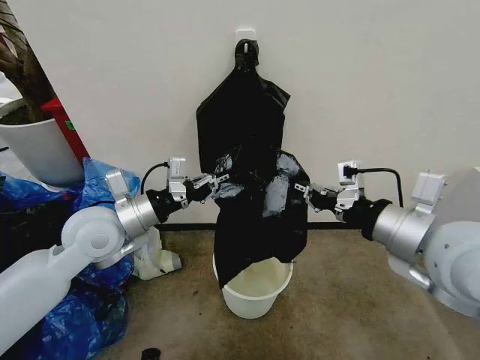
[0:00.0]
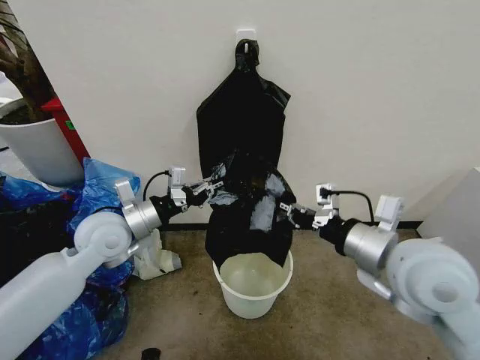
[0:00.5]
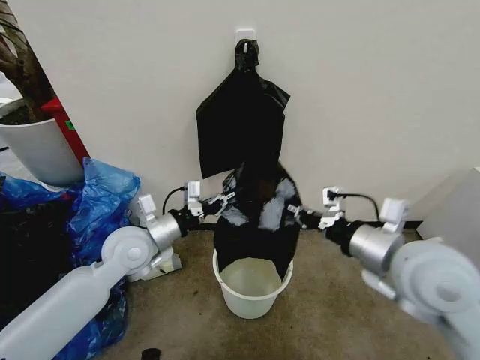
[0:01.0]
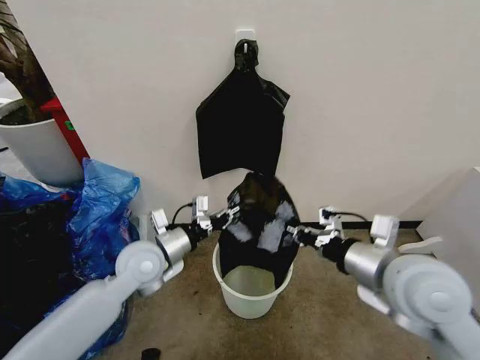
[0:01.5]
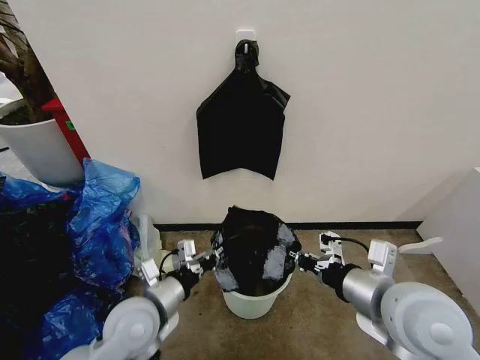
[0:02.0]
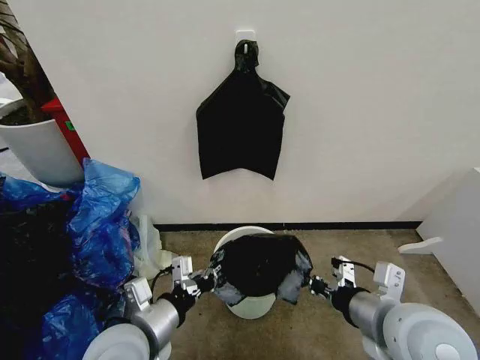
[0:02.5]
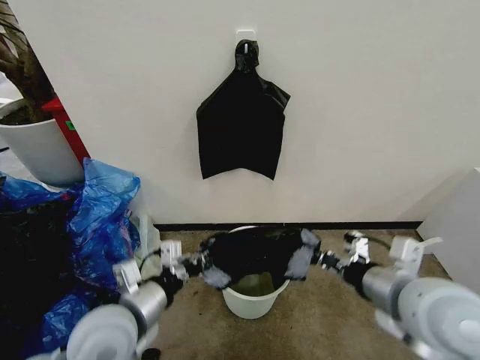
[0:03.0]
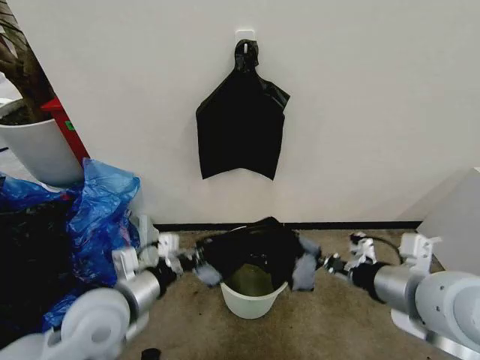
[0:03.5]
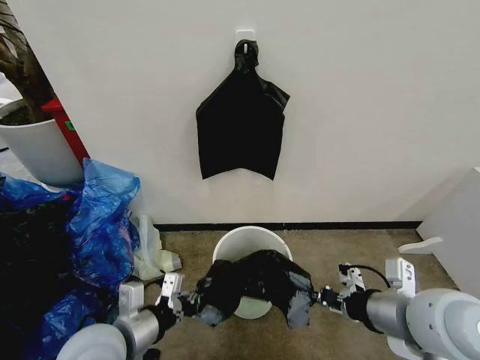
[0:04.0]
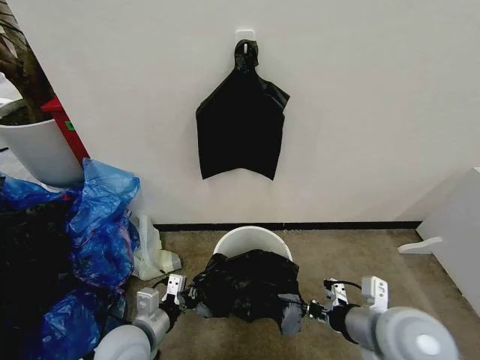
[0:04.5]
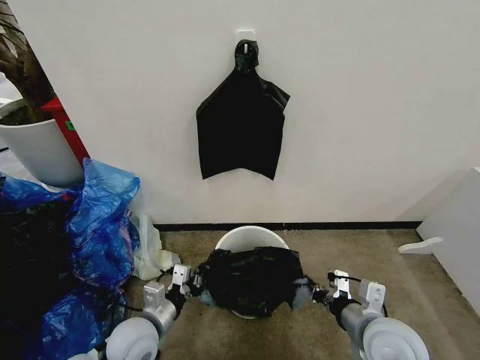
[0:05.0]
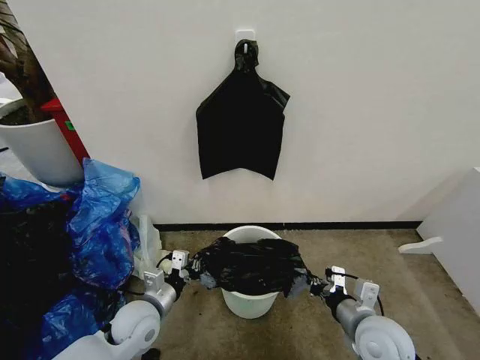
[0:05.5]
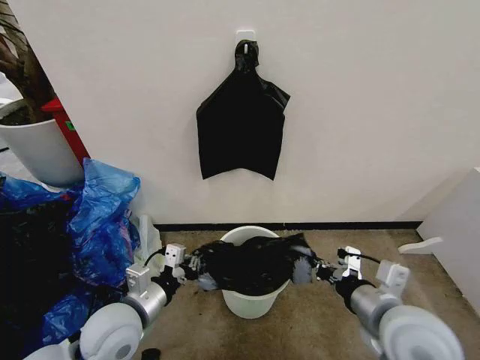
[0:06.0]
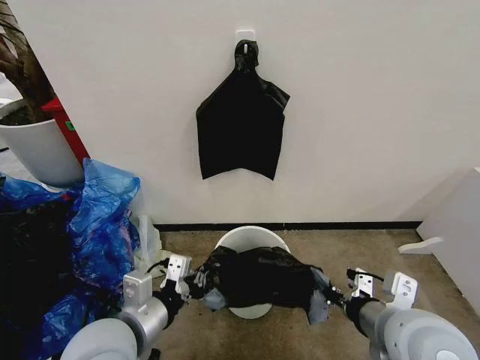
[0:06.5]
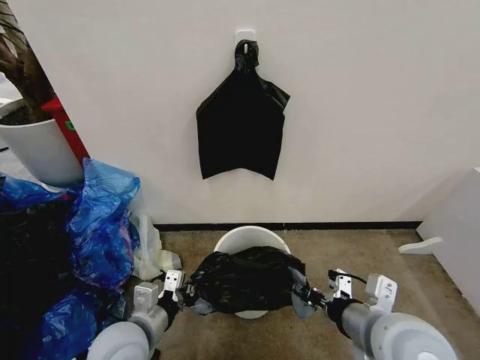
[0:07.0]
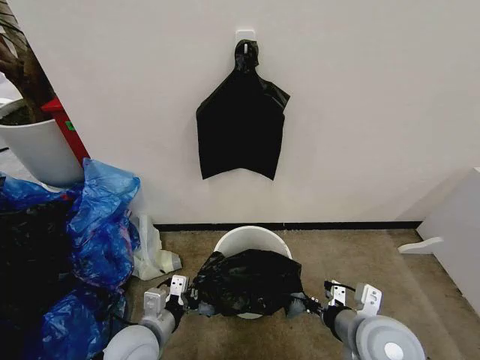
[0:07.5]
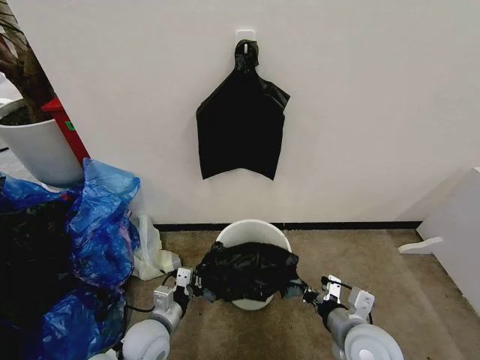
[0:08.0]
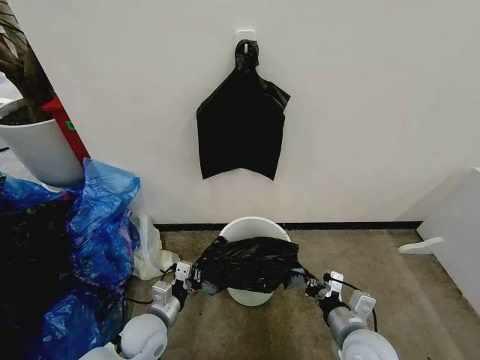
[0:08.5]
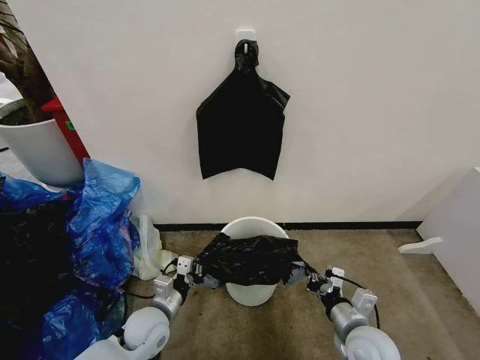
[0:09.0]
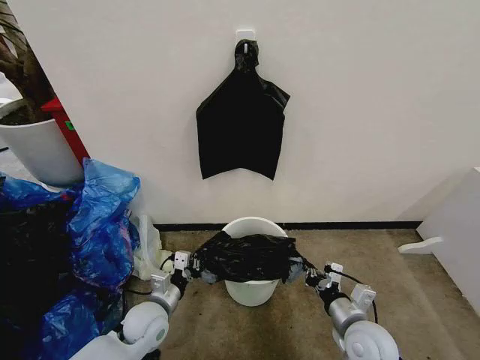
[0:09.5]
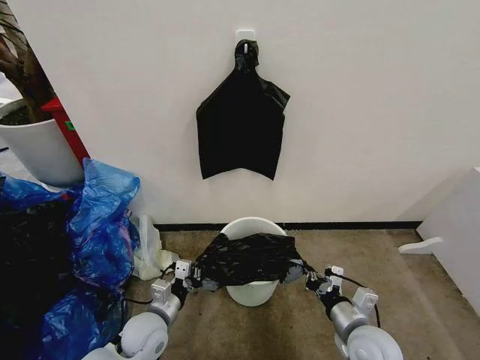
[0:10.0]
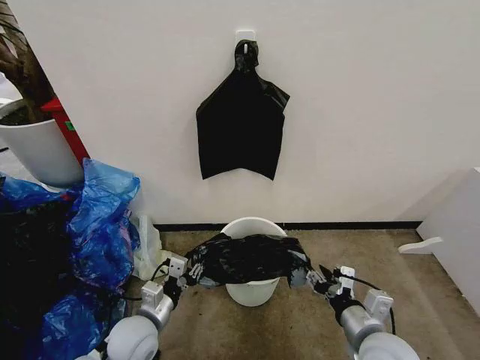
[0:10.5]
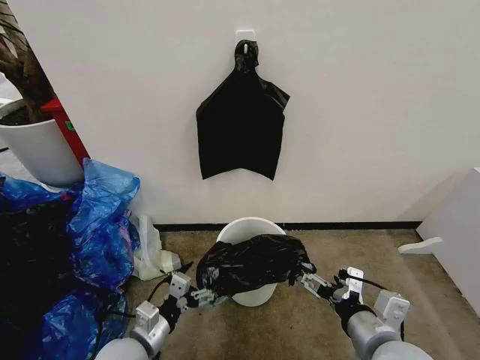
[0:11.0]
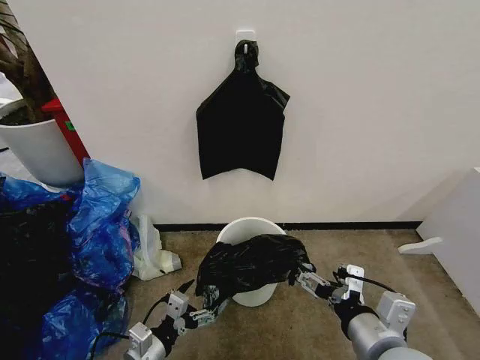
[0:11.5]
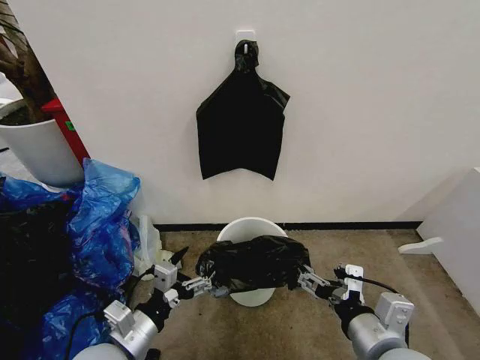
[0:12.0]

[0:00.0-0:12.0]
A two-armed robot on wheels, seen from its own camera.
Task of the whole recording: Place the garbage bag over the trash bin.
0:00.0 to 0:02.0: The left gripper heads downward and backward, covering roughly 20 cm, while the right gripper shifts some 10 cm downward.
0:02.0 to 0:04.0: The left gripper shifts by roughly 5 cm.
0:04.0 to 0:06.0: The right gripper heads downward, covering about 5 cm.
0:06.0 to 0:08.0: The two grippers go approximately 10 cm downward.
0:08.0 to 0:10.0: The right gripper heads downward, covering roughly 5 cm.
0:10.0 to 0:12.0: The grippers both shift upward and backward by approximately 15 cm. The left gripper opens; the right gripper opens up.

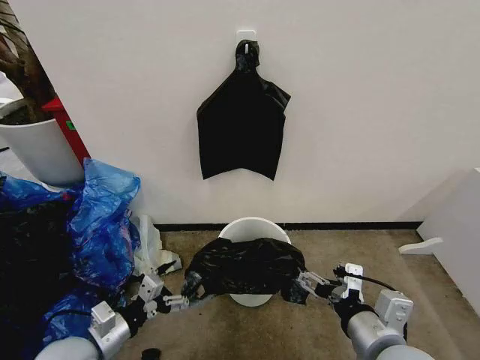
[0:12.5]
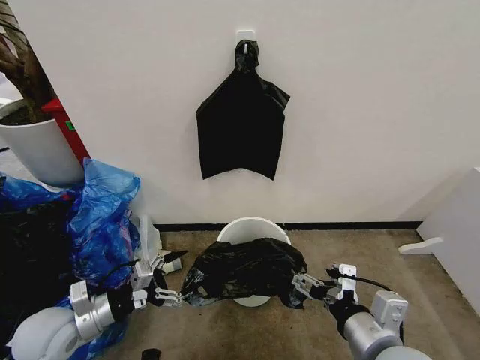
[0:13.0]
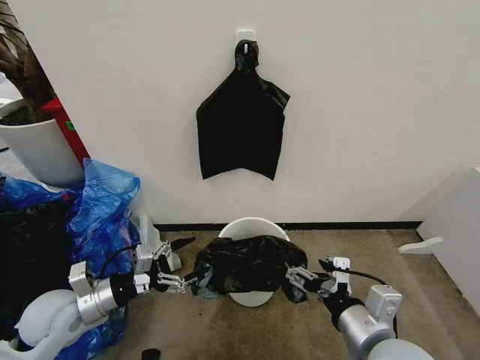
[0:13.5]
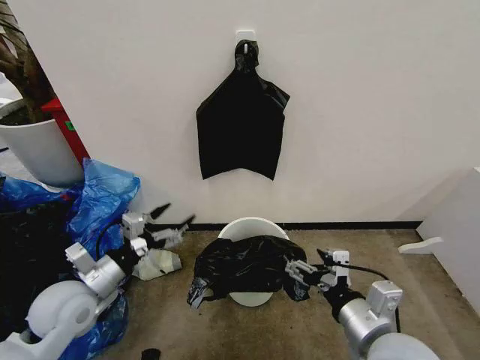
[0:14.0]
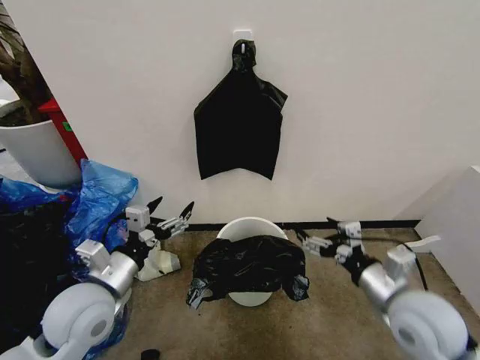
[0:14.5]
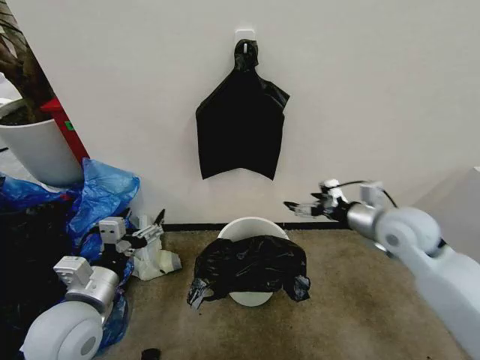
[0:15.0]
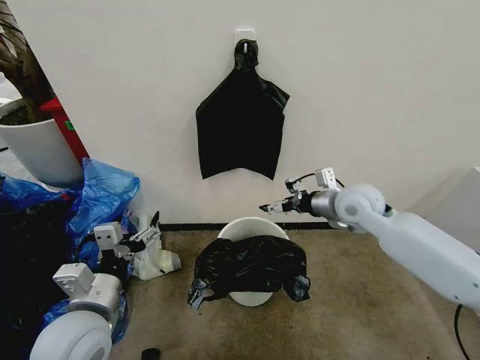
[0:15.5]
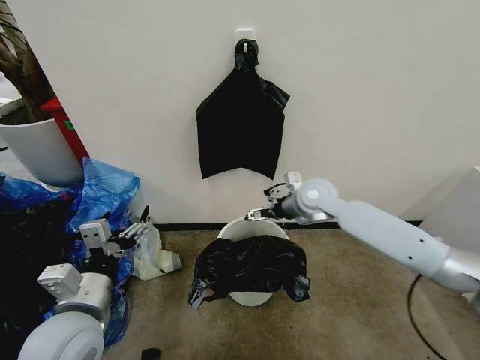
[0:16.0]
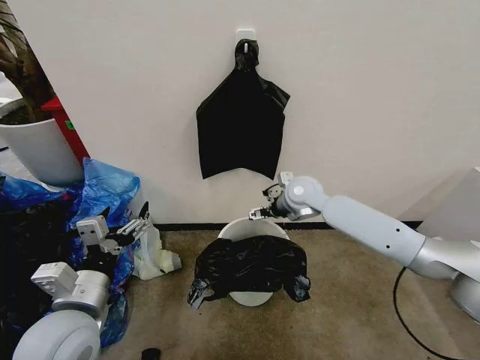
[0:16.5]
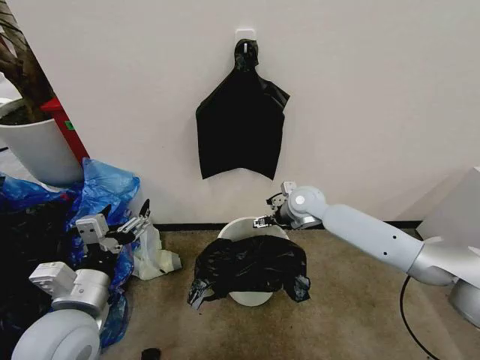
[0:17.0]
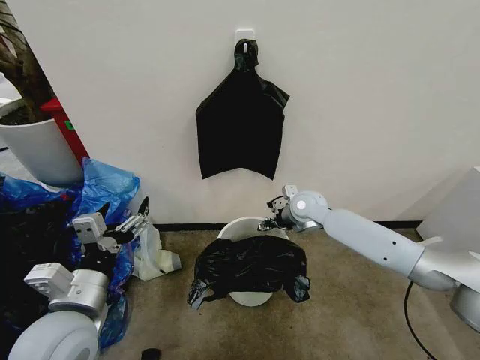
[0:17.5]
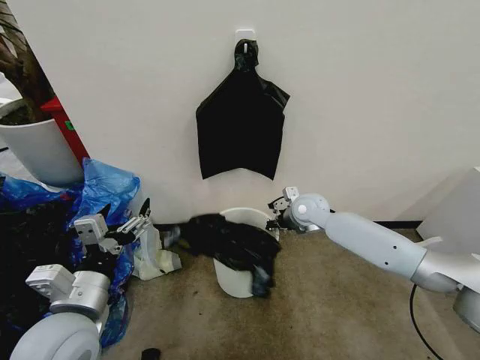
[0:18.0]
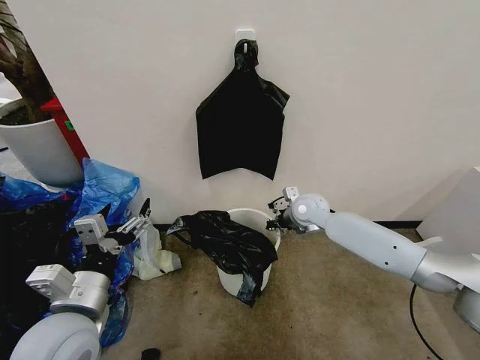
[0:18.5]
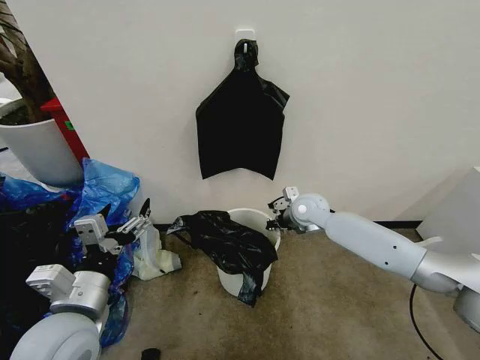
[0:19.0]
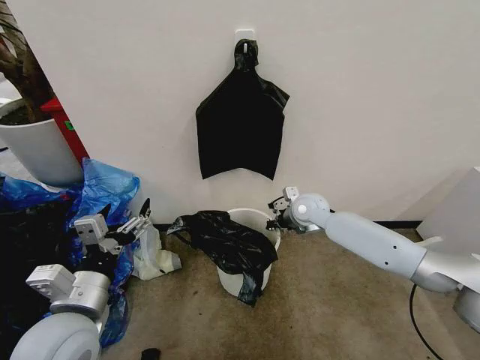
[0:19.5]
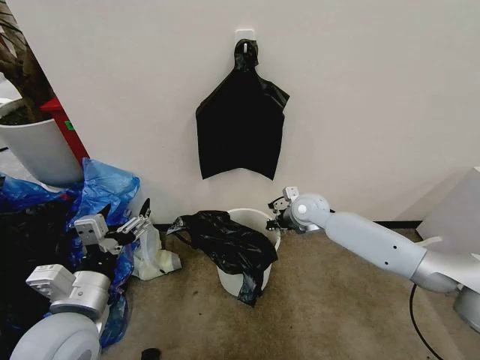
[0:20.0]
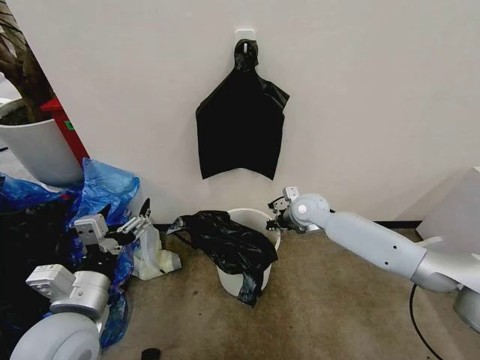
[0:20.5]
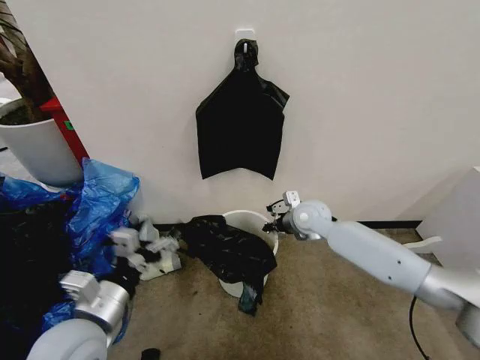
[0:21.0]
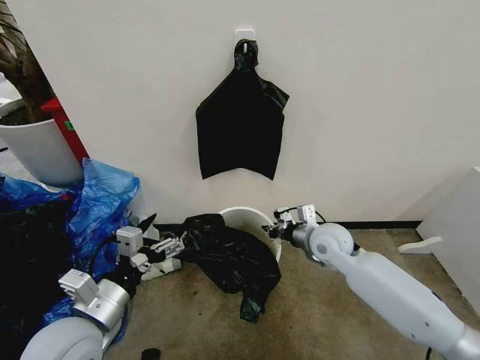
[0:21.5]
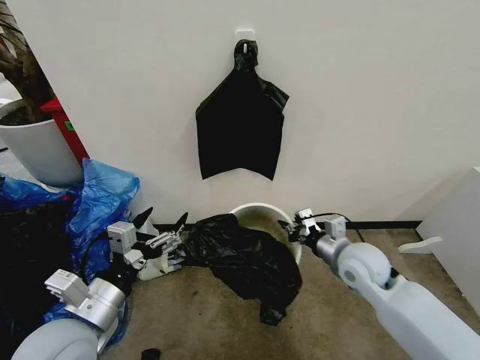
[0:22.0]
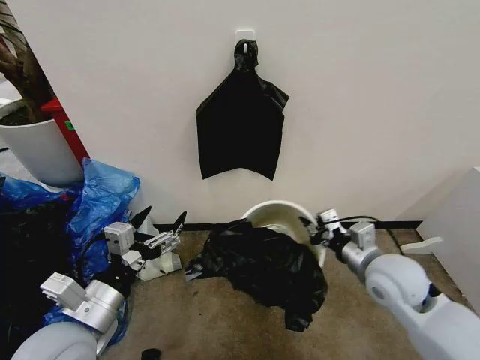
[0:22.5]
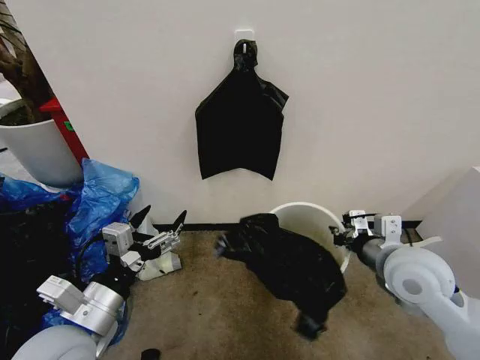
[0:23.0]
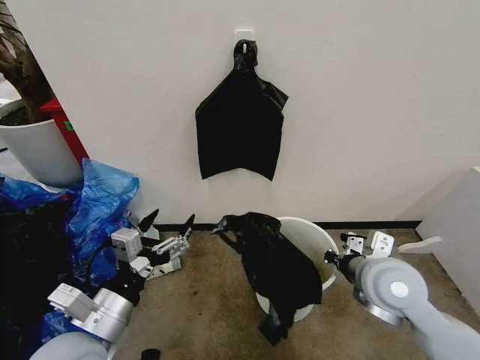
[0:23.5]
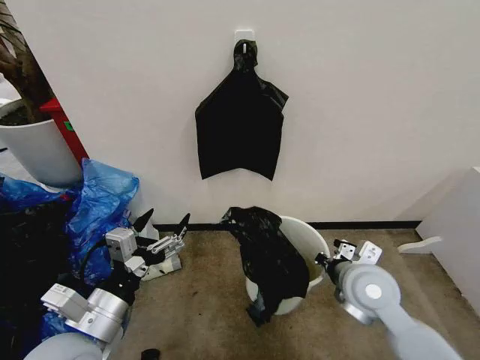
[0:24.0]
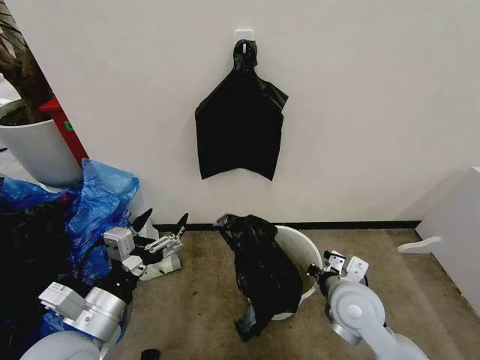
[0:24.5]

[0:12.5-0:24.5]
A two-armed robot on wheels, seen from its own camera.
Task of the whole recording: Place the garbage bag over the trash bin.
0:12.5 to 0:14.5: The left gripper travels upward and forward by about 10 cm; the right gripper moves forward and to the right, about 10 cm.
0:14.5 to 0:16.5: The right gripper is displaced forward and to the left by about 30 cm.
0:16.5 to 0:18.5: The right gripper is displaced downward by some 5 cm, and closes up.
0:18.5 to 0:20.5: Both grippers stay about where they are.
0:20.5 to 0:22.5: The right gripper heads backward and to the right, covering about 25 cm.
0:22.5 to 0:24.5: The right gripper is displaced to the left and downward by some 10 cm.

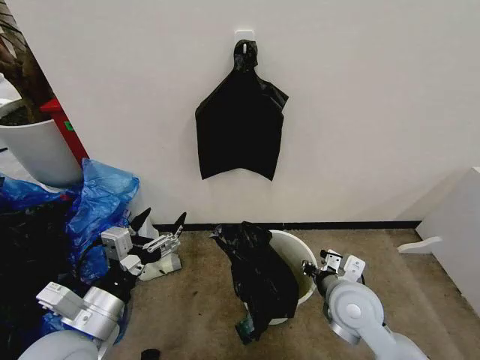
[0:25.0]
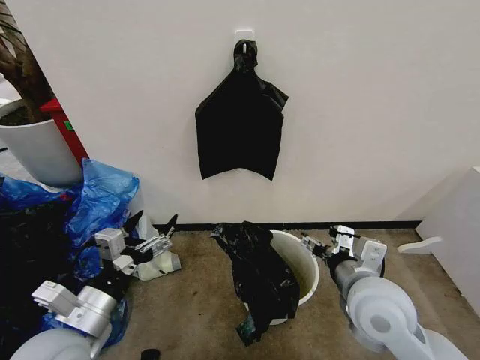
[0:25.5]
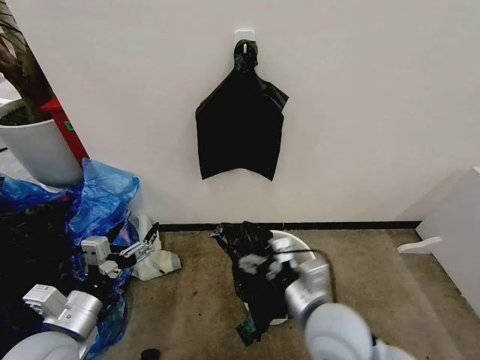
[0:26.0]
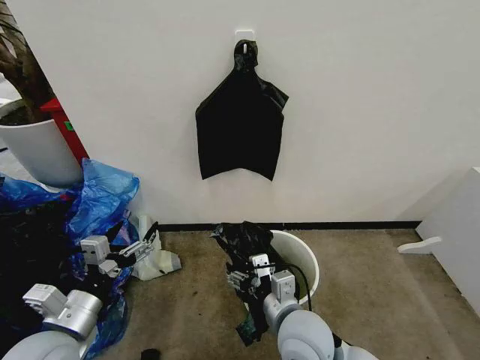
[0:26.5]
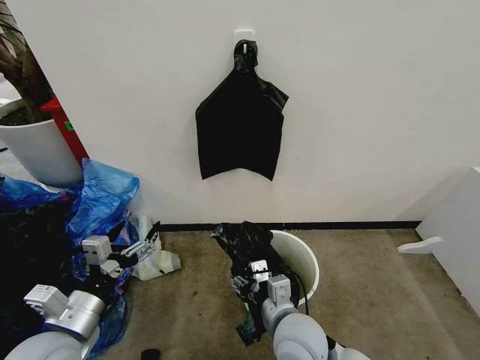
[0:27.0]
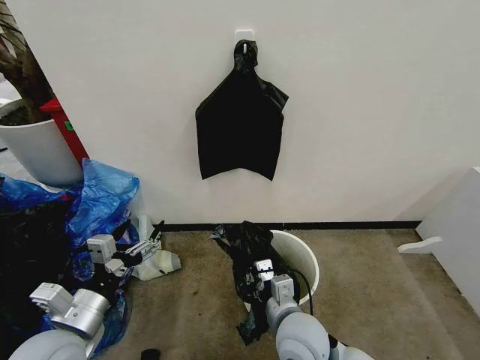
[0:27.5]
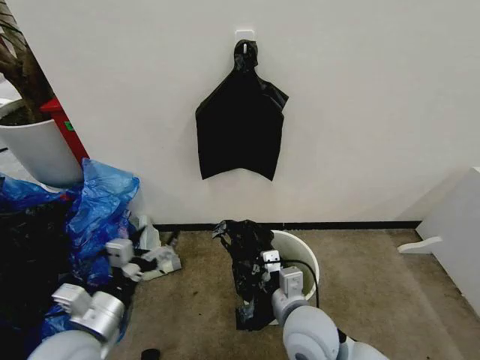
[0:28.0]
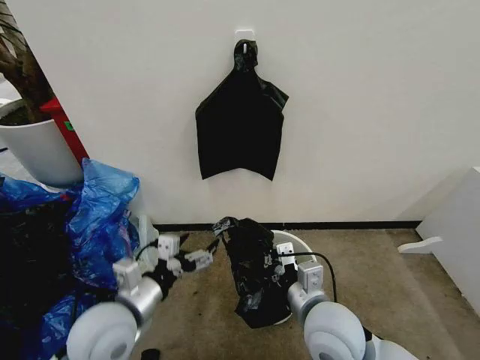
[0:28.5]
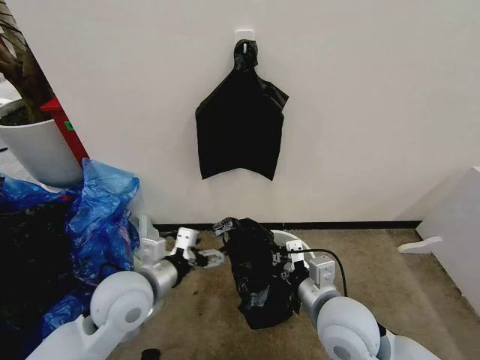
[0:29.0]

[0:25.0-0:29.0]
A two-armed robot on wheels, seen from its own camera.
Task of the whole recording: Place the garbage bag over the trash bin.
0:25.0 to 0:27.0: The right gripper heads to the left and backward, covering approximately 15 cm, and opens, then closes once more.
0:27.0 to 0:29.0: The right gripper shifts roughly 10 cm to the right and upward, and closes up, while the left gripper is displaced to the right and forward by roughly 15 cm.
